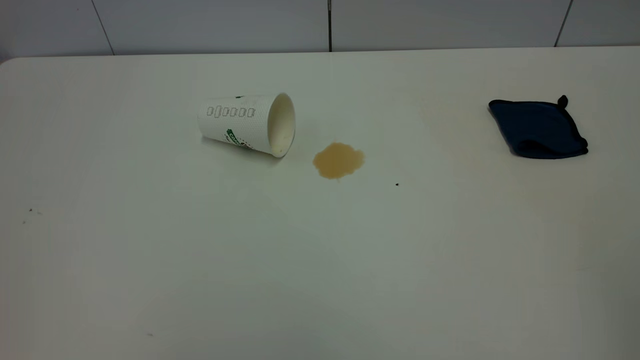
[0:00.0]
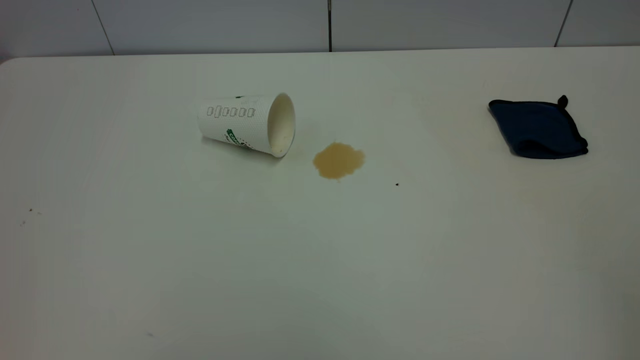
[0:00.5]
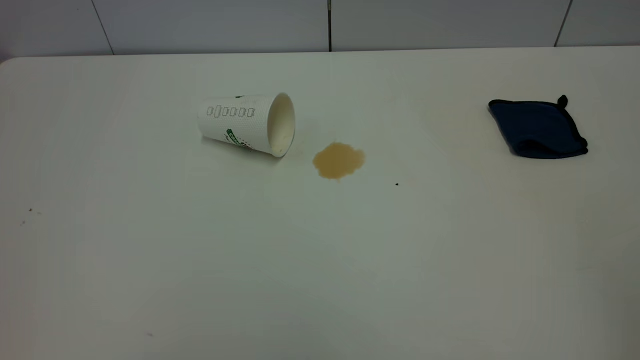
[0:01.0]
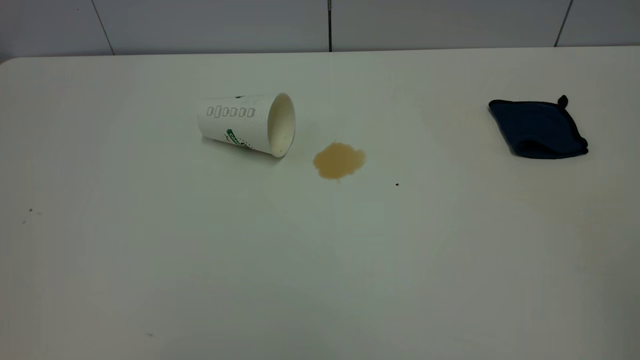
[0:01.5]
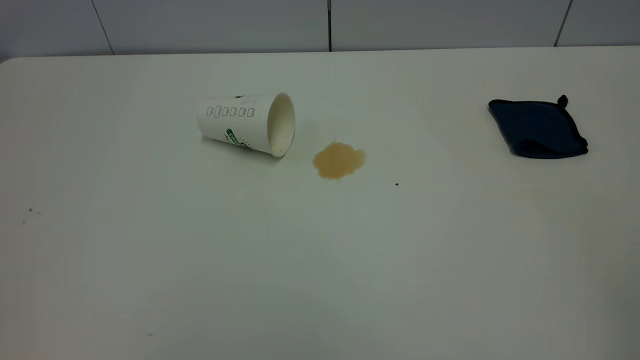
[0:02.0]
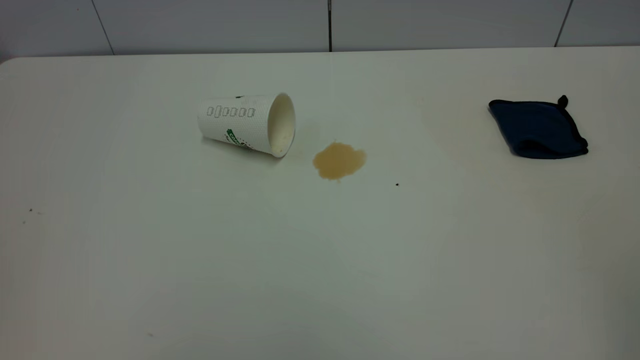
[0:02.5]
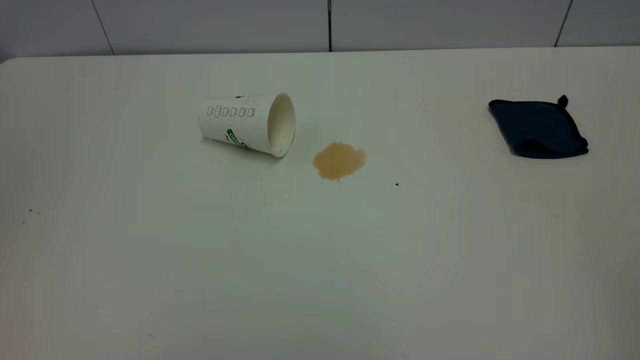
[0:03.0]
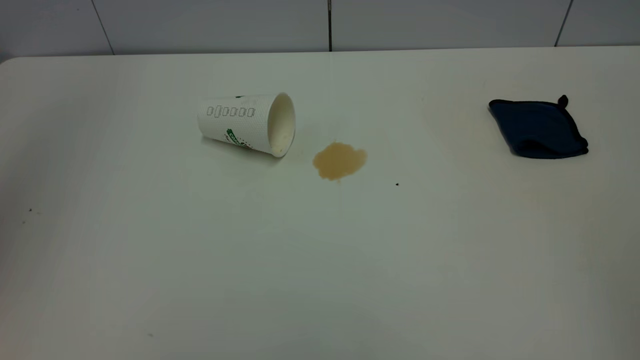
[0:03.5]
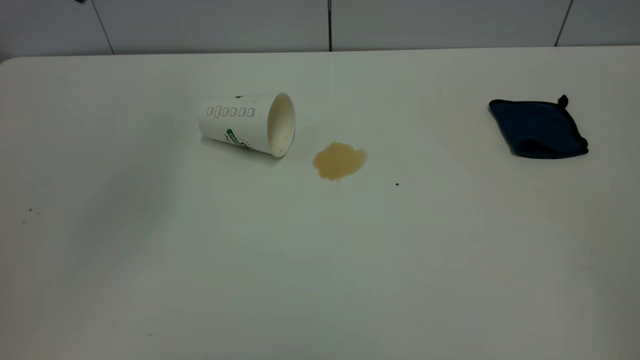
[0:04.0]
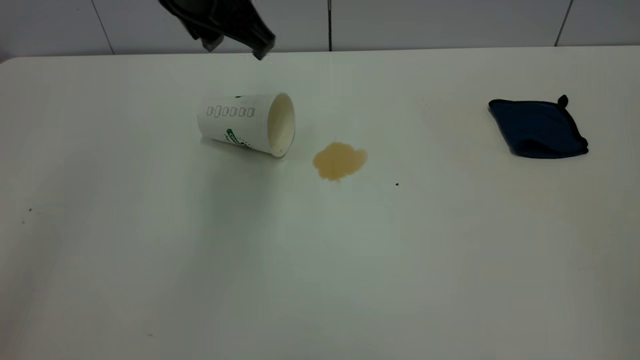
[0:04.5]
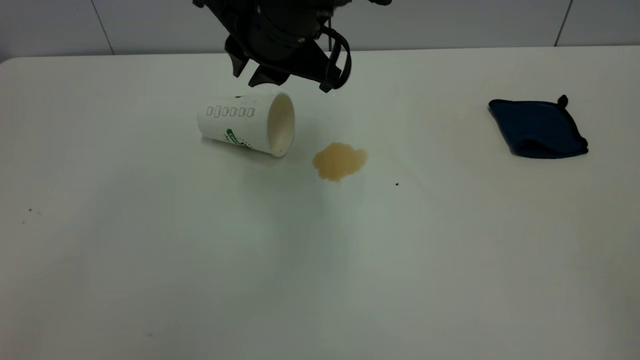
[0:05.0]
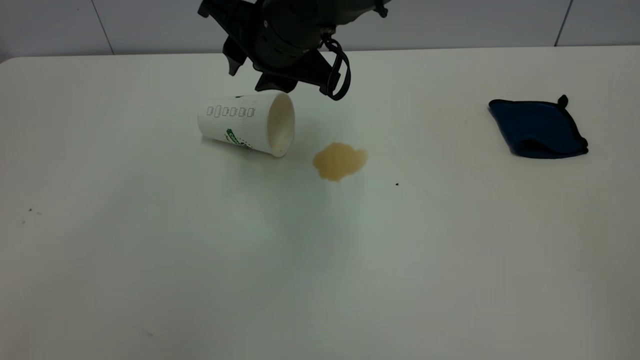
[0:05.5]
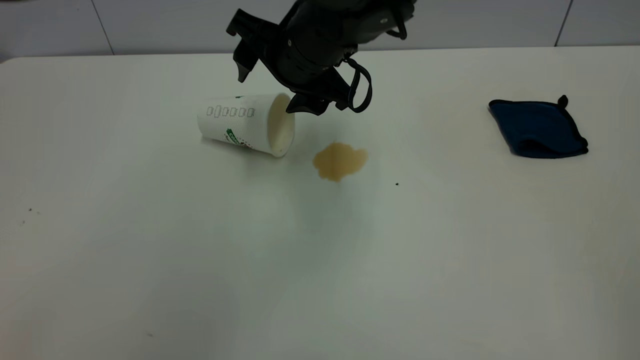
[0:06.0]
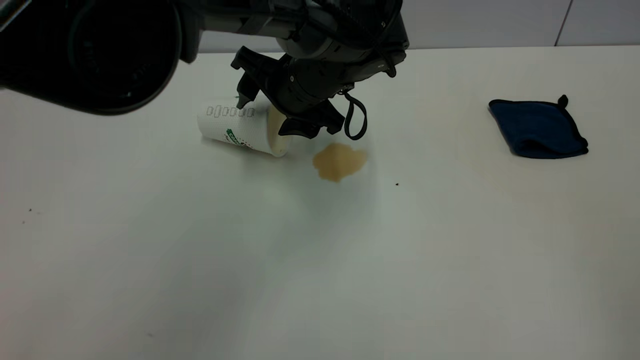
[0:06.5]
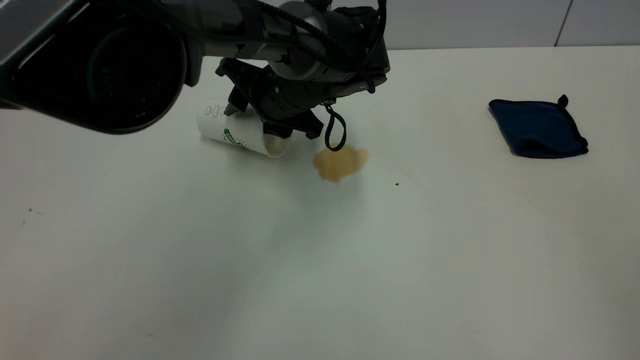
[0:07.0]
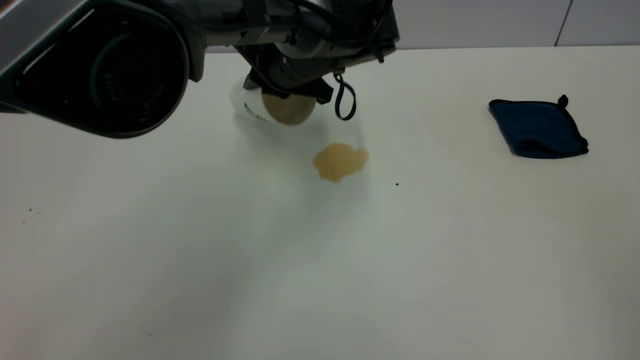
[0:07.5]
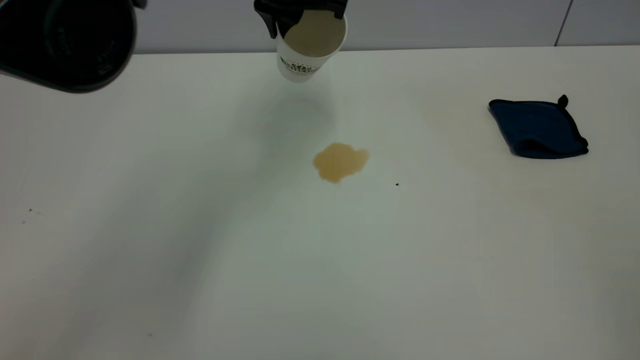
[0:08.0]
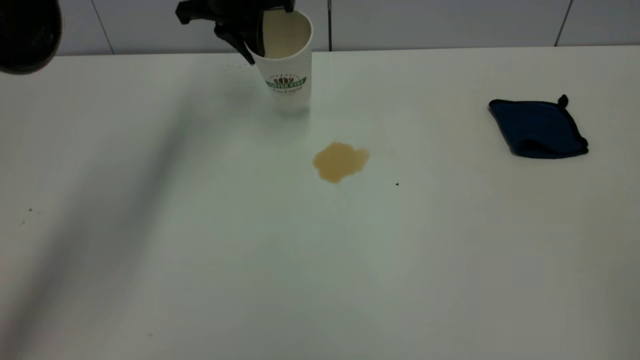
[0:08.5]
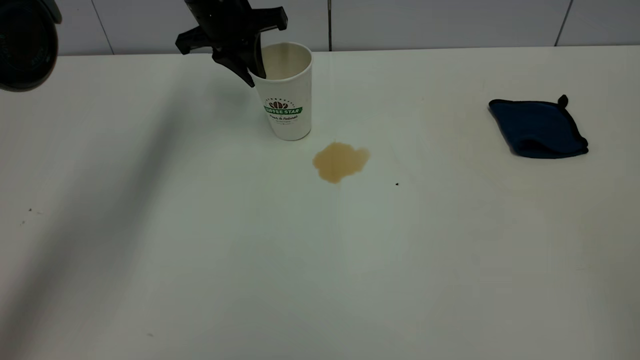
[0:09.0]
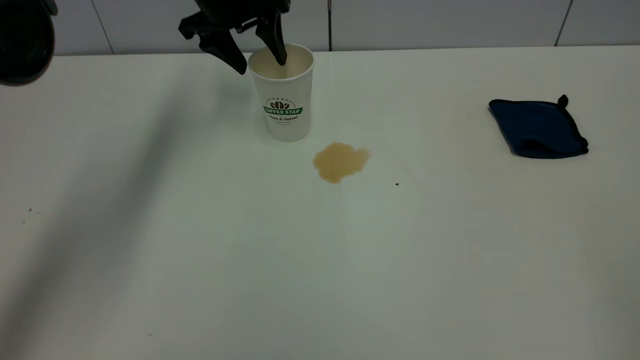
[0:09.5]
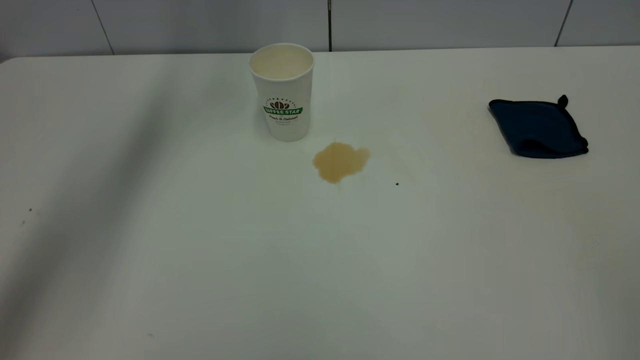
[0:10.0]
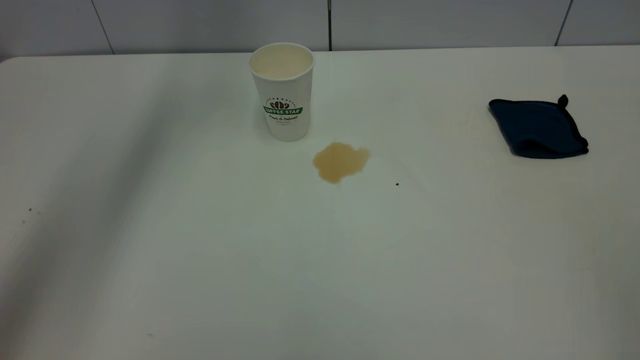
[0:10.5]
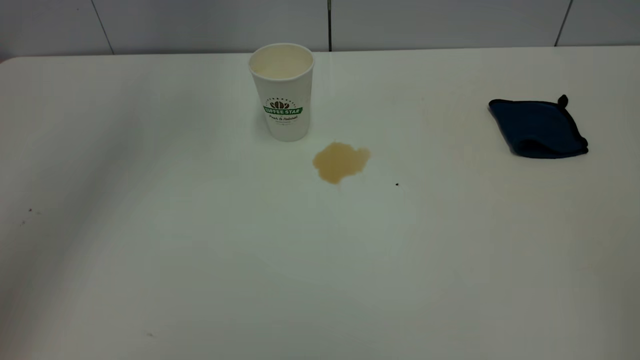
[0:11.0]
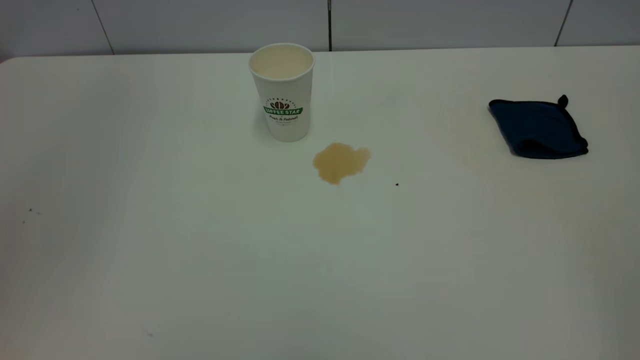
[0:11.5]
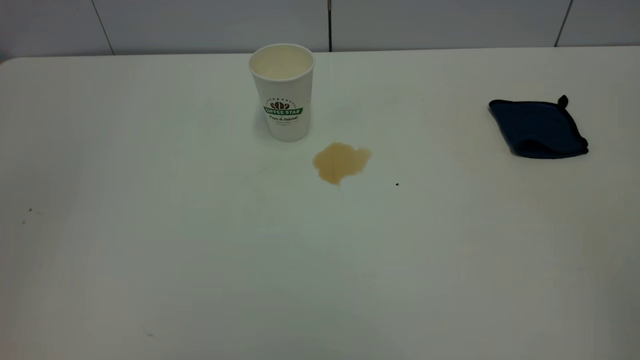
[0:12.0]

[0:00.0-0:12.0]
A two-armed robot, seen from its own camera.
Task of the whole recording: the left gripper pick up the fallen cup and place it upright, the right gripper grasp the blue rag and wipe the tea stain on the table, the right gripper put the blue rag back in its original position.
Step, 0:00.0 to 0:09.5: Stand the paper cup upright.
0:00.0 to 0:02.0: Both grippers stay put.
0:04.0 to 0:06.0: The left gripper is displaced to the right and downward by some 25 cm, and opens its fingers.
0:06.0 to 0:08.0: The left gripper travels forward and upward by about 10 cm, and closes its fingers.
0:08.0 to 0:10.0: The left gripper goes roughly 15 cm upward and to the left, and opens.
0:10.0 to 0:12.0: The left gripper goes some 40 cm backward.

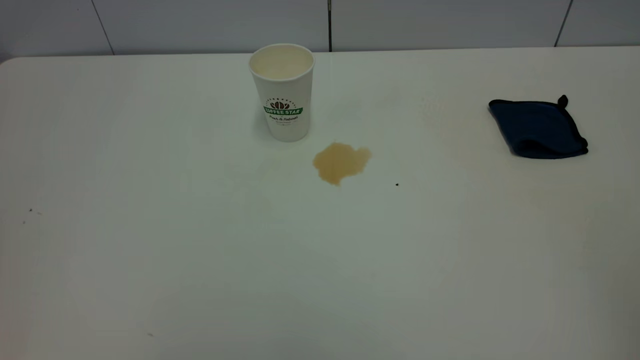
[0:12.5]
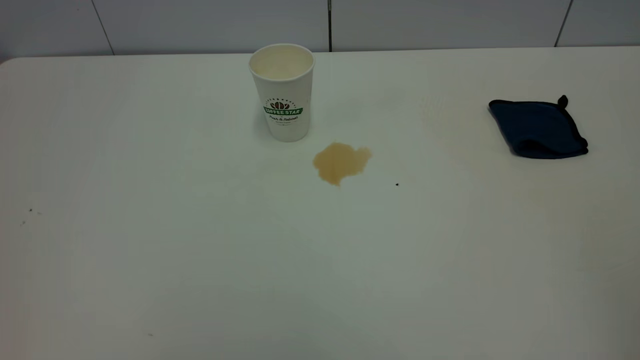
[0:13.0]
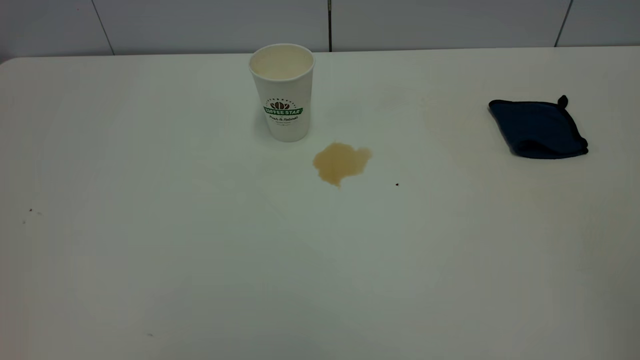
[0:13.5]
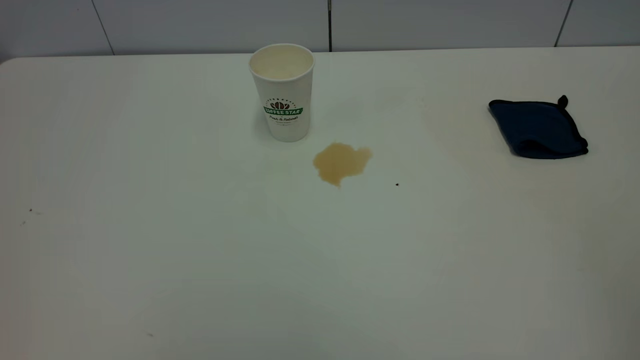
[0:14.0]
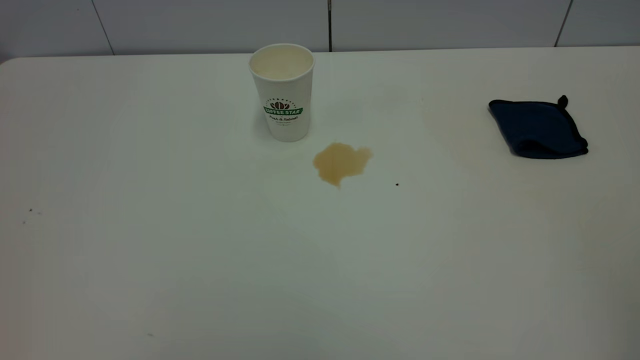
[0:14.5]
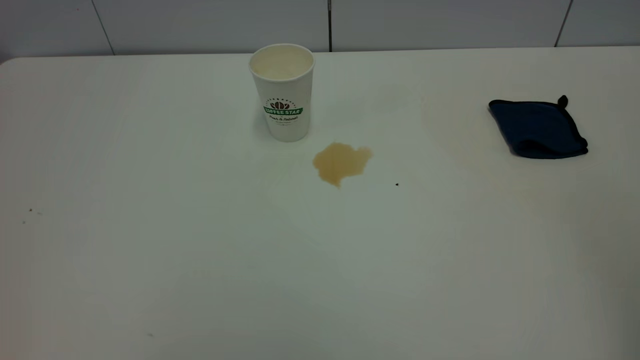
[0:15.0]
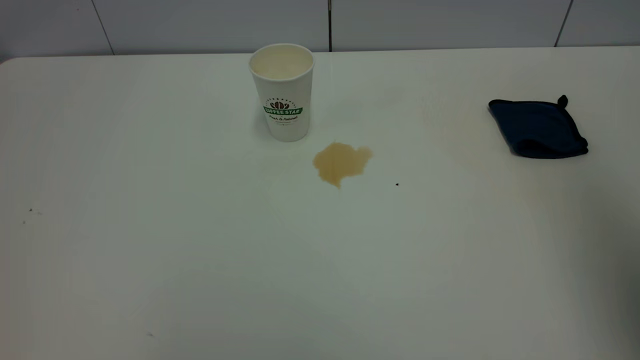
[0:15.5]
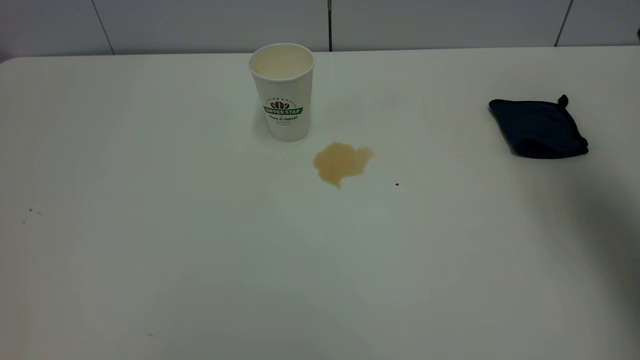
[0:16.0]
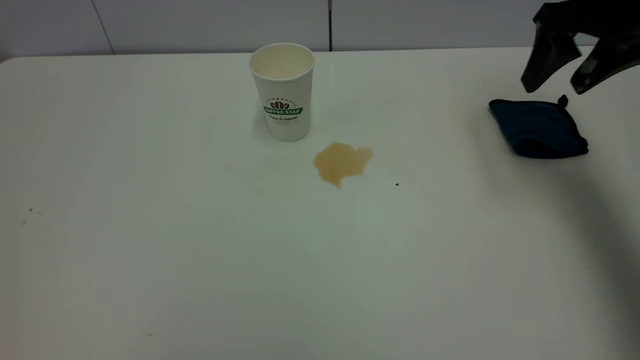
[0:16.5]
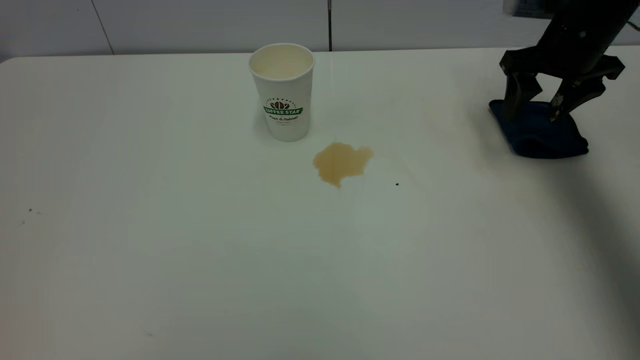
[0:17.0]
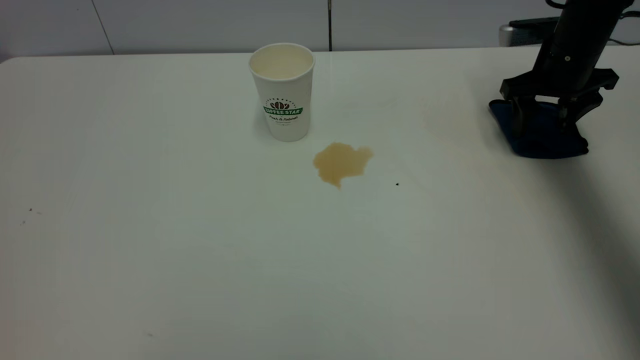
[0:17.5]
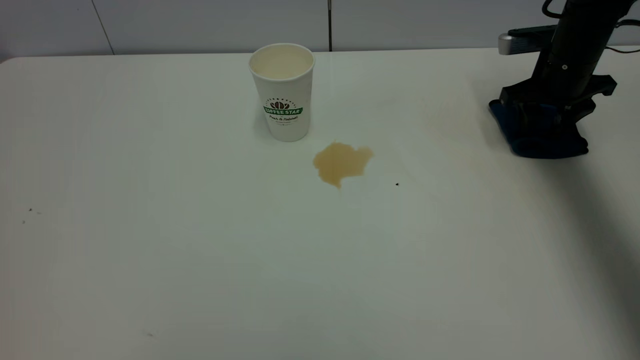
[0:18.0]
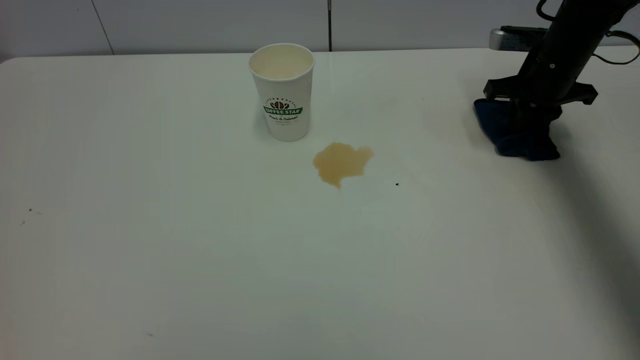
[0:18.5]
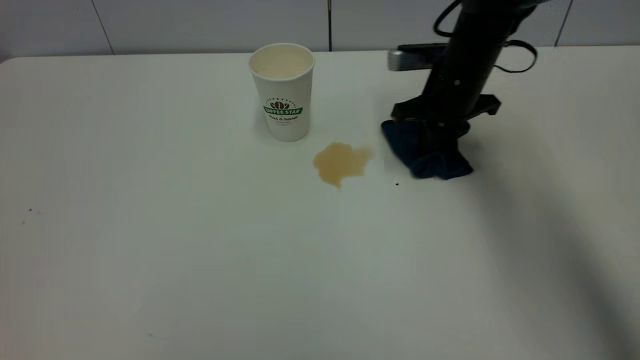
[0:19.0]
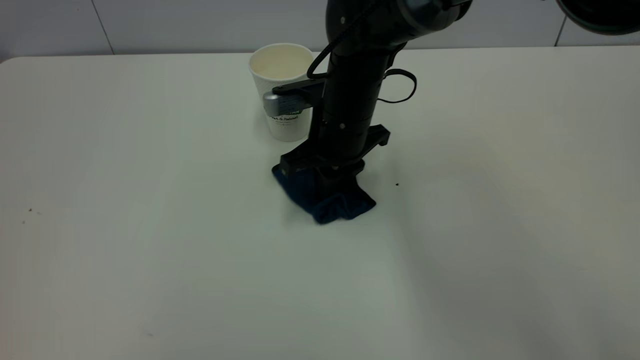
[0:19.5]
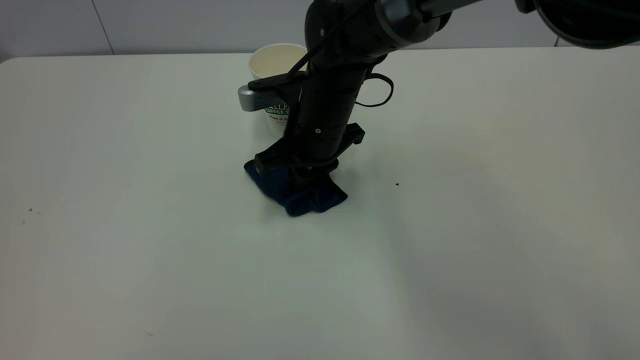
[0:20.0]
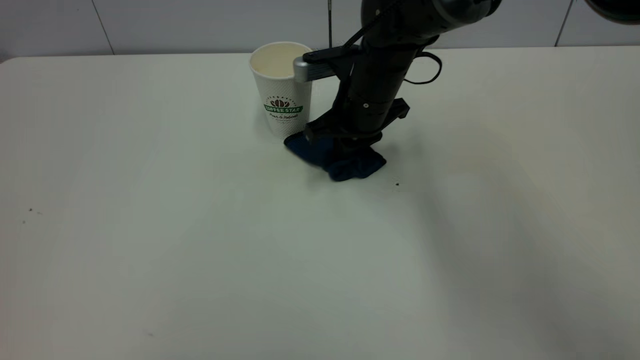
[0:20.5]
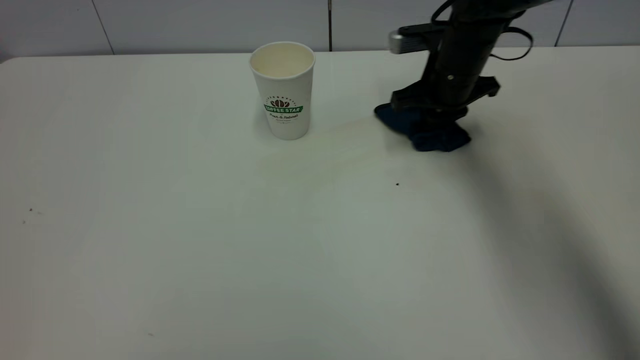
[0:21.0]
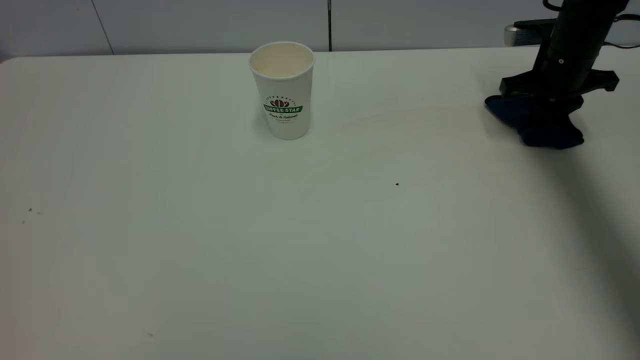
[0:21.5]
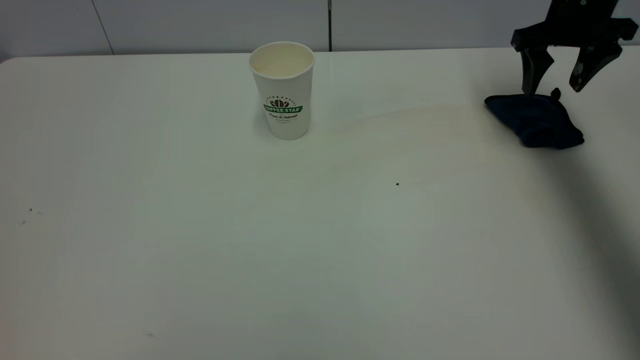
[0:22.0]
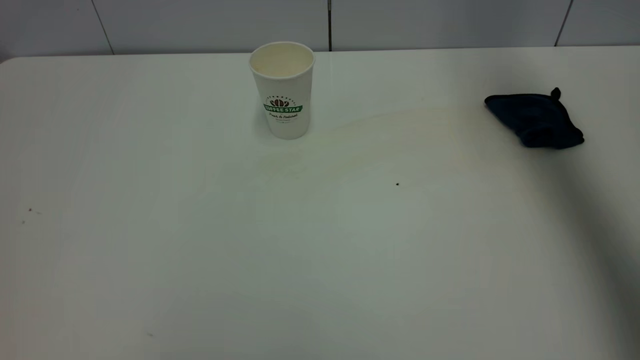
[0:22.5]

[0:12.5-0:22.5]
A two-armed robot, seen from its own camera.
Task of the whole recording: the left gripper pick up the fallen cup and place it upright, the right gripper grasp the blue rag and wipe the tea stain on the table, the right gripper put the blue rag back in its original position.
Step, 0:12.5 to 0:22.0: Wipe the stains off the table with a rag.
0:14.5 to 0:16.5: The right gripper is displaced forward by roughly 40 cm, and opens its fingers.
0:16.5 to 0:18.5: The right gripper goes roughly 15 cm downward and forward, and closes.
0:18.5 to 0:20.5: The right gripper goes about 20 cm to the left.
0:20.5 to 0:22.5: The right gripper moves upward and to the right, approximately 35 cm, and opens.
